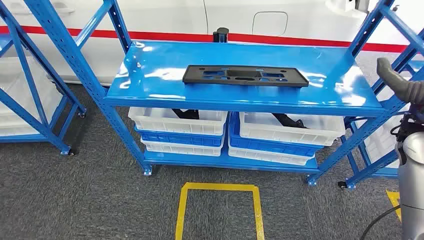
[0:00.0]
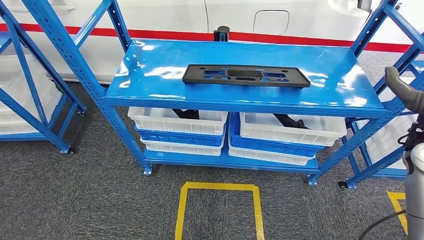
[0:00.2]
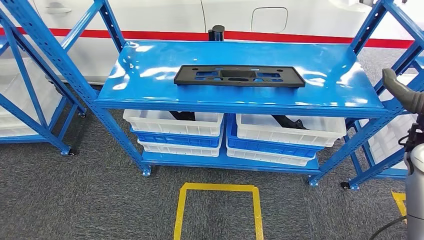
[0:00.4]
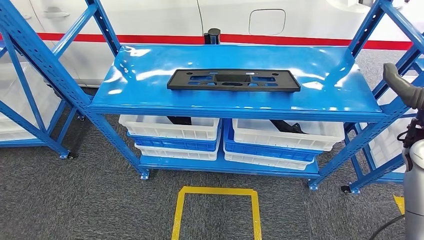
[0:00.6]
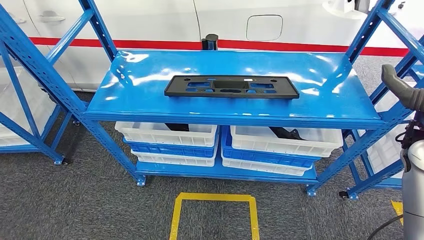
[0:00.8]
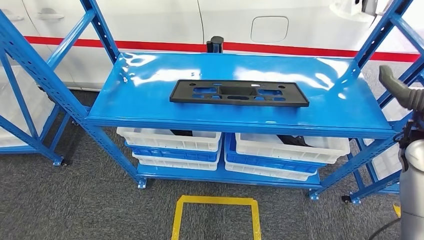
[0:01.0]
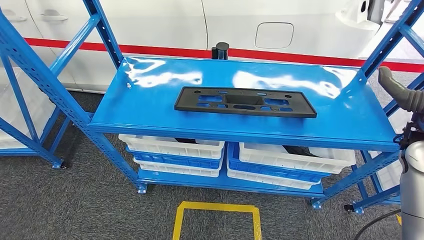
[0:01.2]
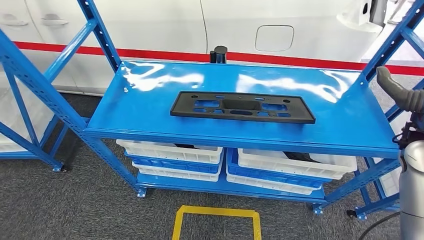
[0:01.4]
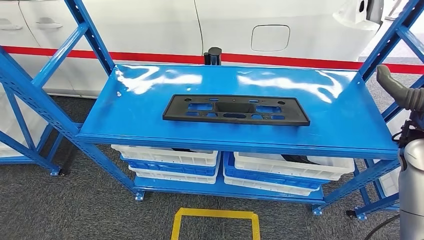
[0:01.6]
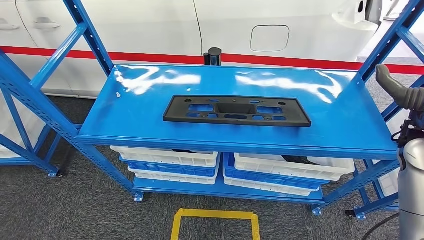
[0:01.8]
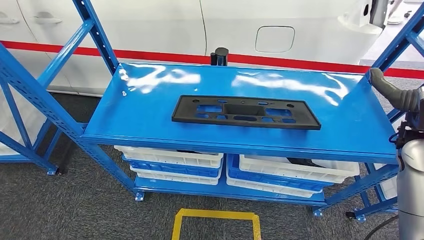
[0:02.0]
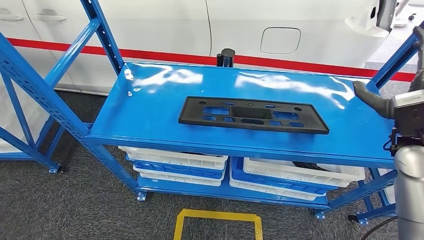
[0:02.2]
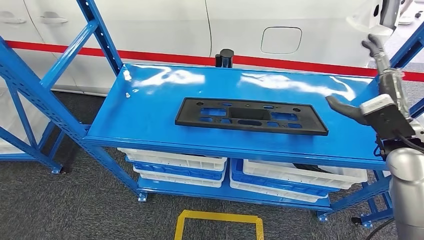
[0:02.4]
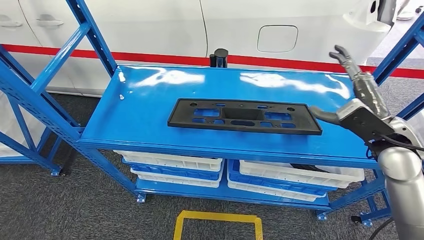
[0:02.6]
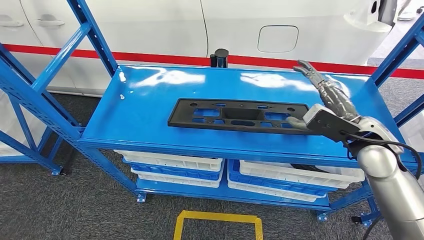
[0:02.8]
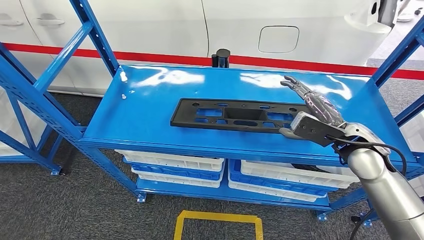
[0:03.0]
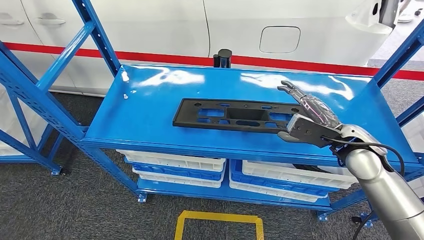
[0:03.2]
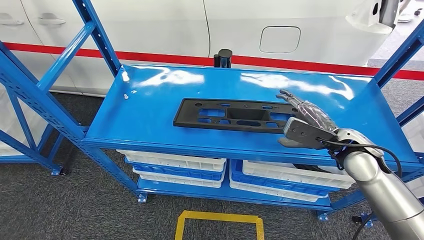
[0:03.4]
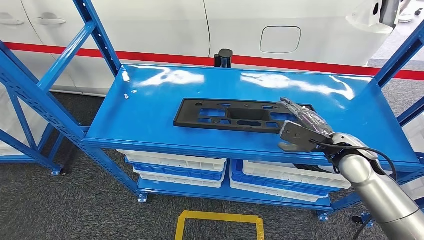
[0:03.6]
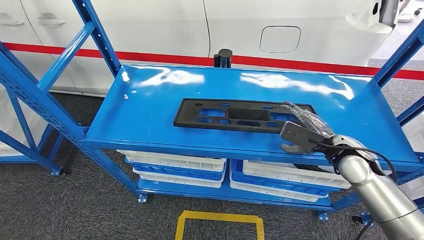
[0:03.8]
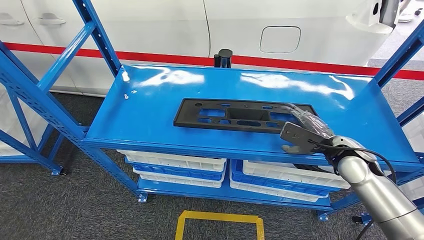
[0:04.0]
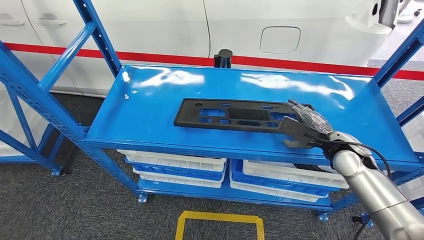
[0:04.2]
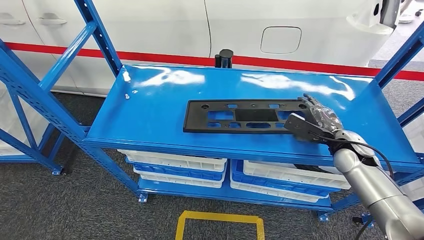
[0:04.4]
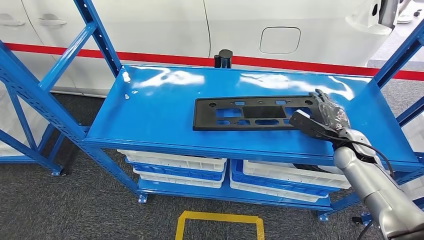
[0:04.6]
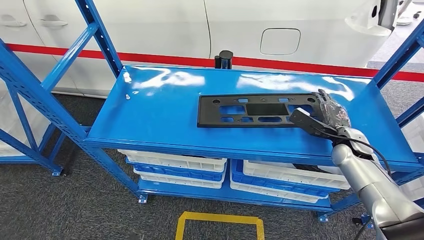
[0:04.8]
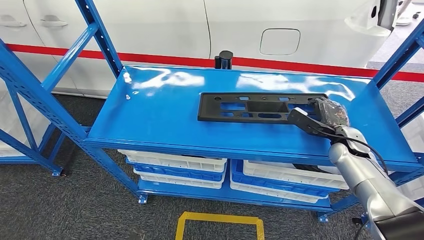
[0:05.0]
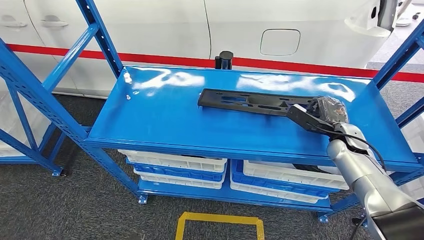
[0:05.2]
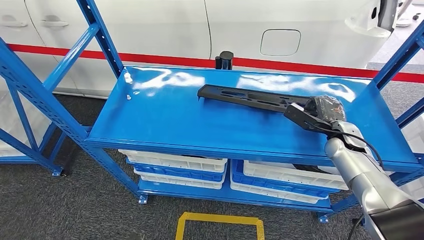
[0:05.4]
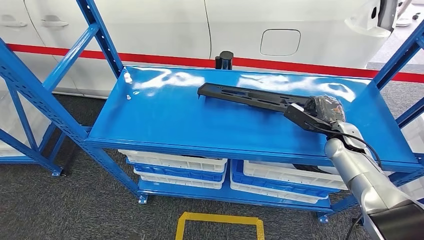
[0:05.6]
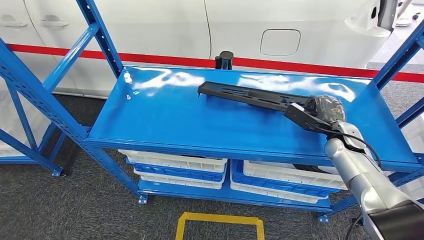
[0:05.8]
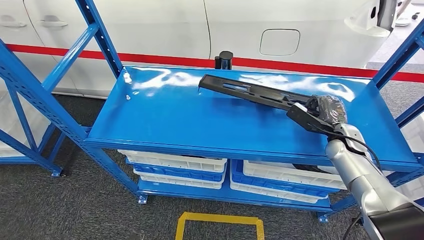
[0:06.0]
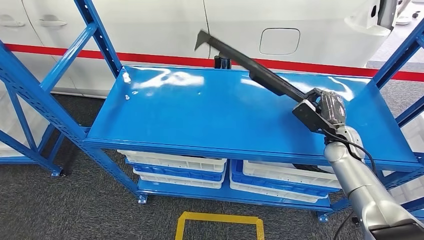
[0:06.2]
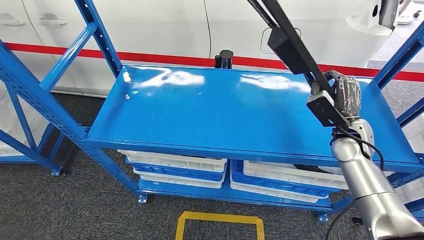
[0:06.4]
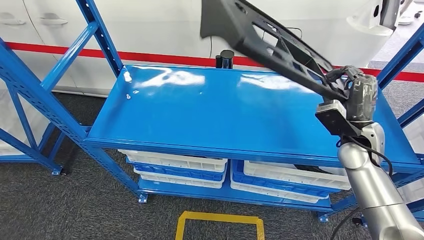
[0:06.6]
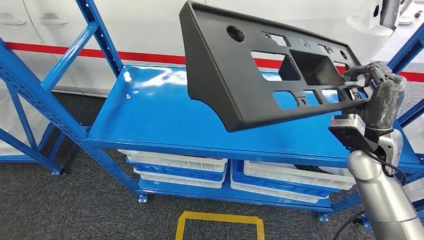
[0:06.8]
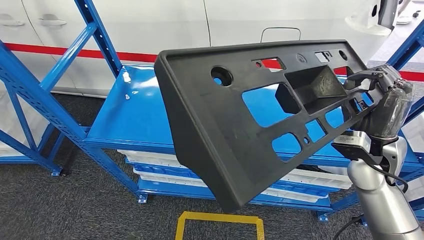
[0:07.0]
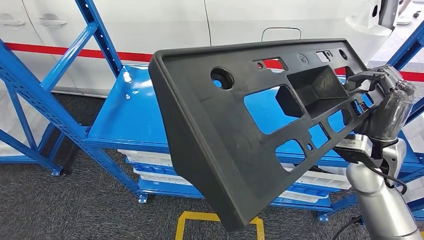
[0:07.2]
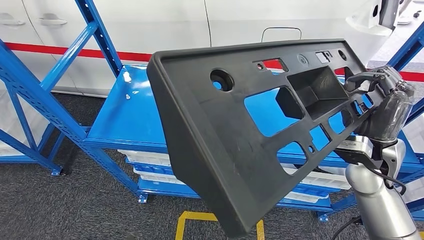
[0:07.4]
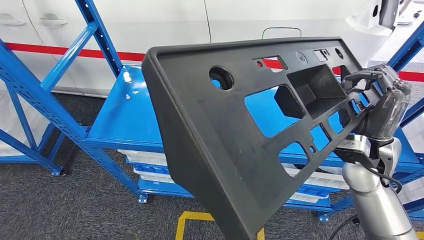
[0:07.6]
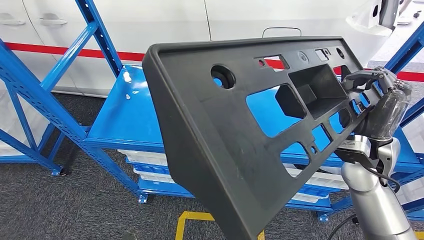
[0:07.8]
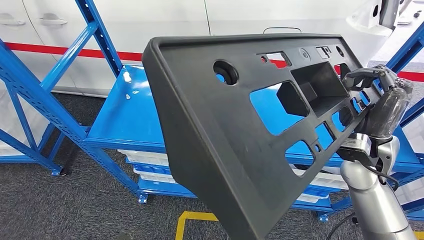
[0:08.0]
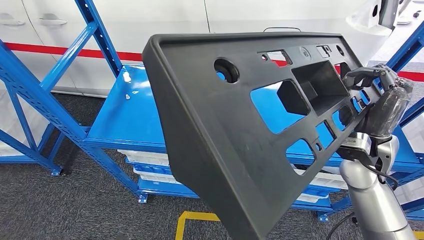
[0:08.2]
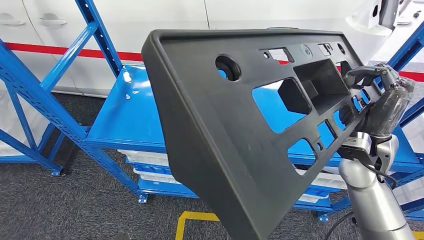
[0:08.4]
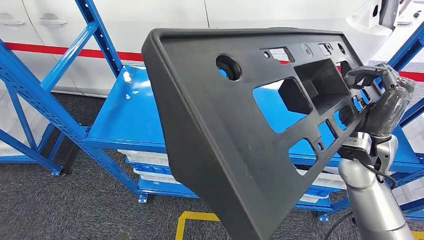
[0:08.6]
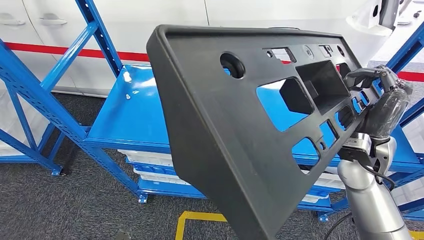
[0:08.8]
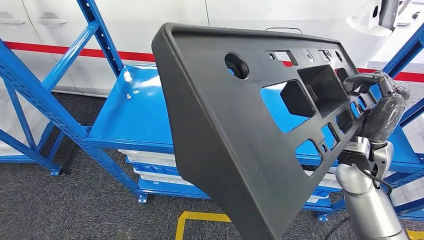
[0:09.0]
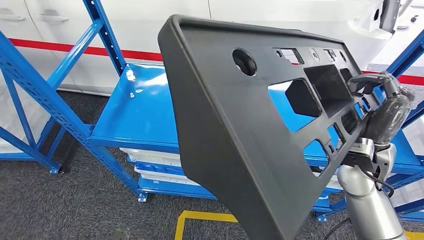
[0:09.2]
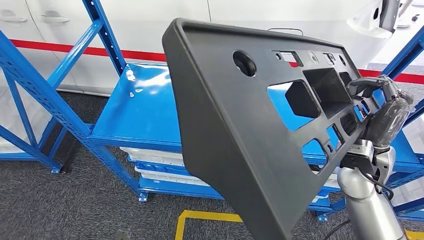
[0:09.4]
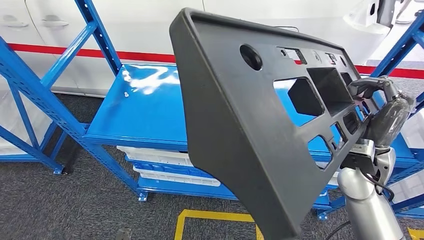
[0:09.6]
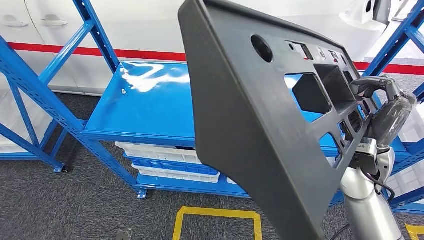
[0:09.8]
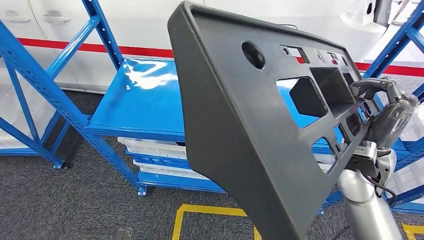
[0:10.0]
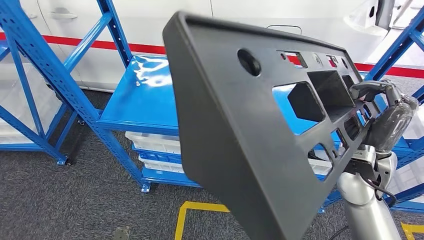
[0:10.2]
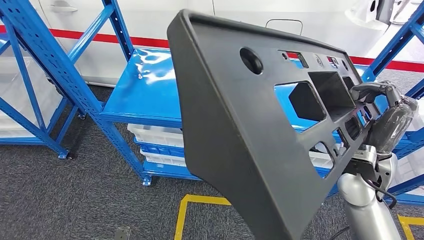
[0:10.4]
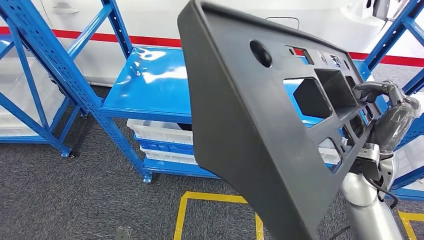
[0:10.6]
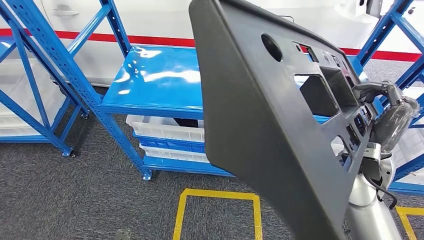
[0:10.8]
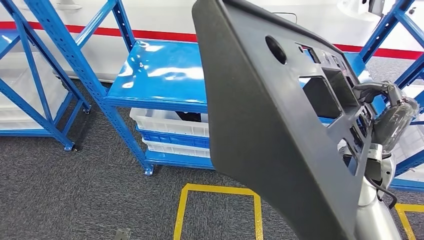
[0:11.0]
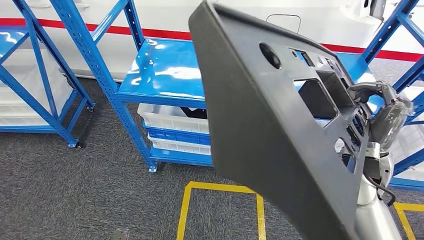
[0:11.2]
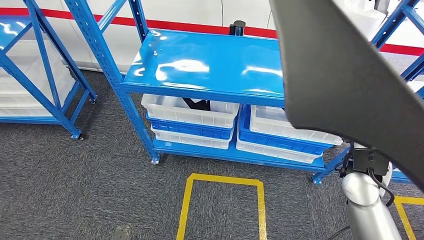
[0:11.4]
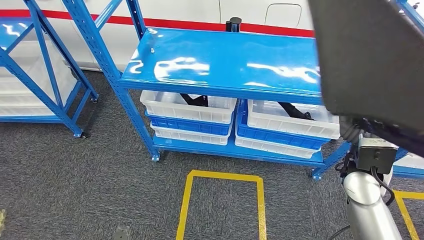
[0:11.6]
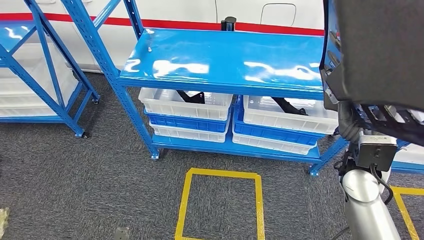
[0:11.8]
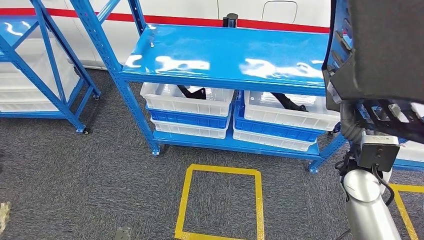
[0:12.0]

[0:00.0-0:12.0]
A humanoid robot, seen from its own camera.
Step, 0:00.0 to 0:10.2: Pick up the large material from the shelf.
0:03.0 to 0:04.4: The right hand moves downward, roughly 10 cm.

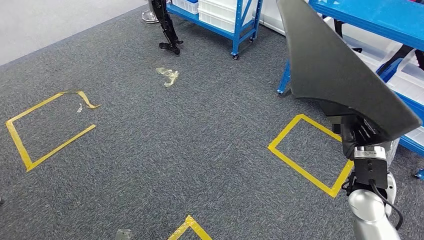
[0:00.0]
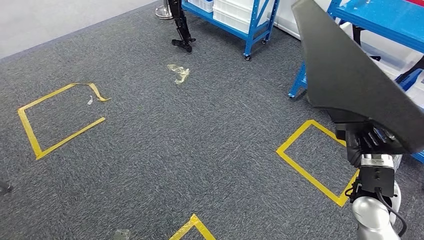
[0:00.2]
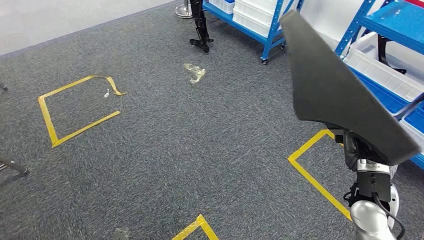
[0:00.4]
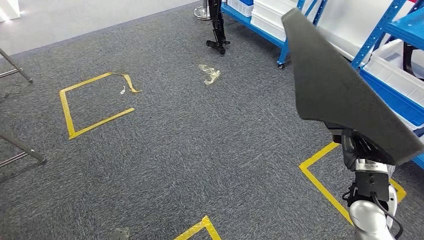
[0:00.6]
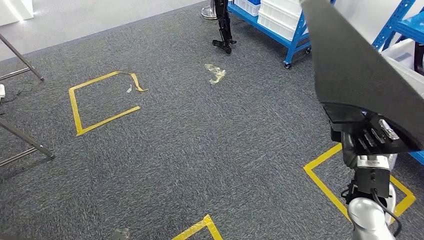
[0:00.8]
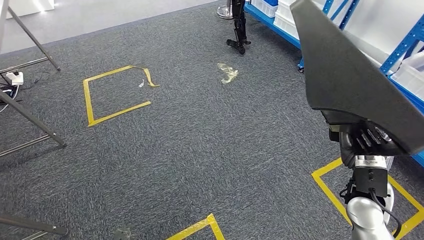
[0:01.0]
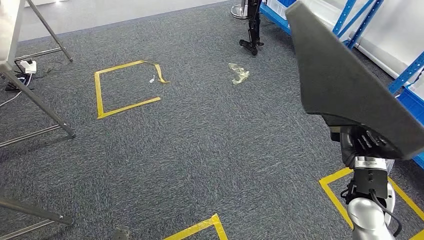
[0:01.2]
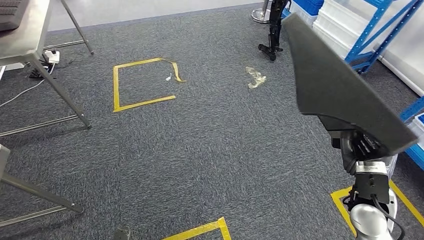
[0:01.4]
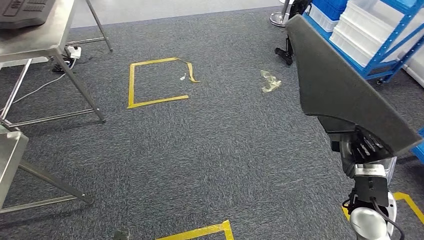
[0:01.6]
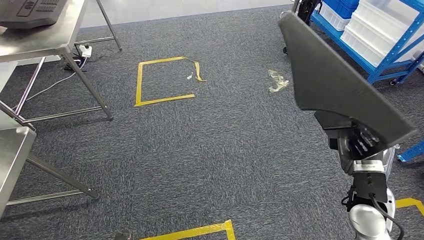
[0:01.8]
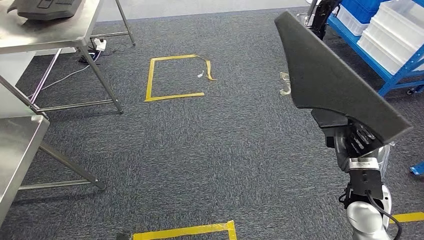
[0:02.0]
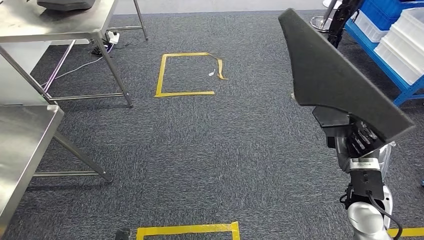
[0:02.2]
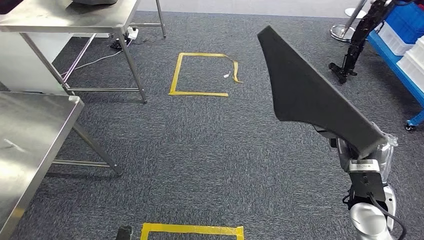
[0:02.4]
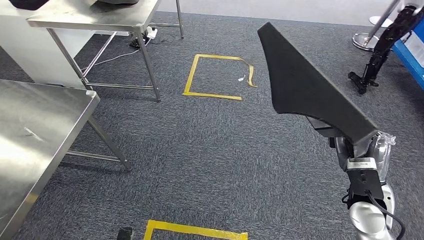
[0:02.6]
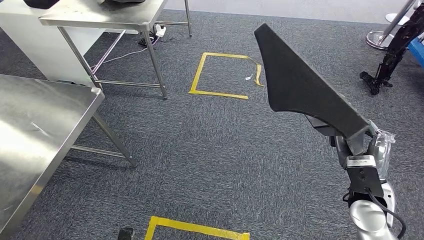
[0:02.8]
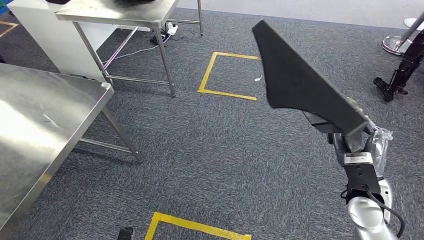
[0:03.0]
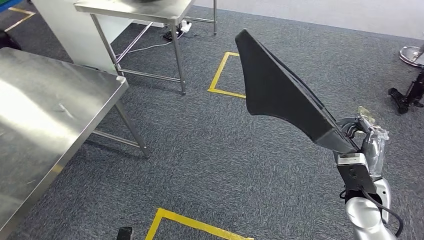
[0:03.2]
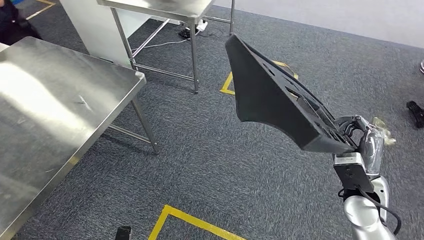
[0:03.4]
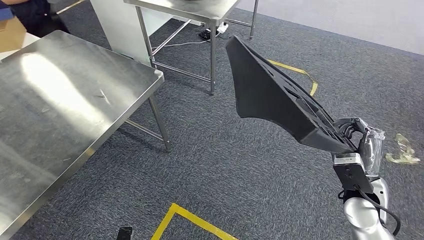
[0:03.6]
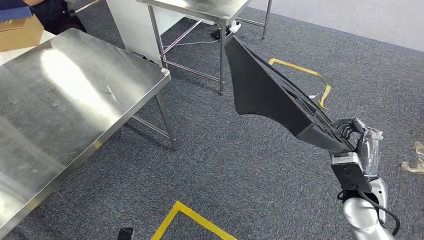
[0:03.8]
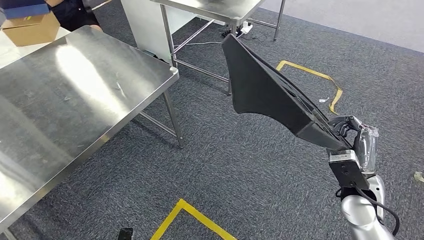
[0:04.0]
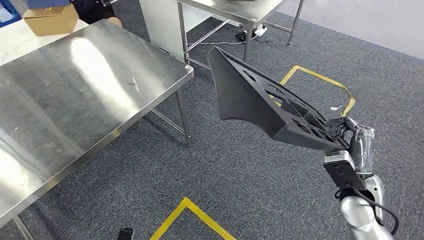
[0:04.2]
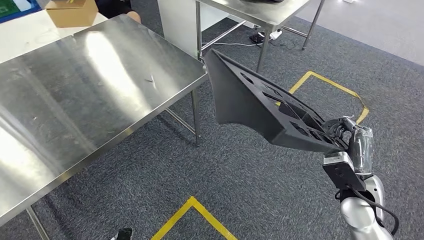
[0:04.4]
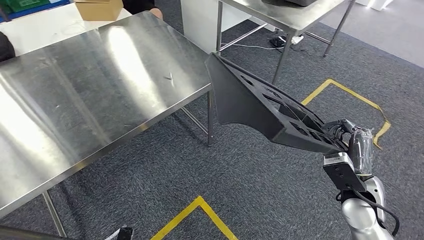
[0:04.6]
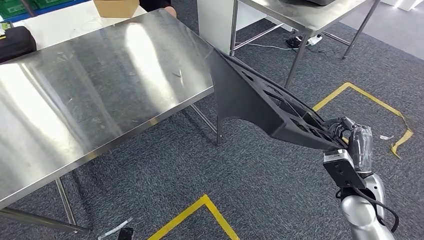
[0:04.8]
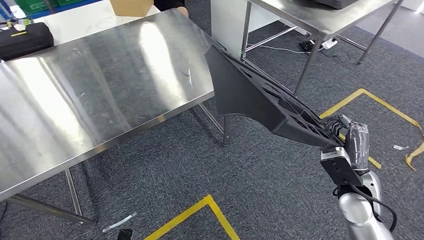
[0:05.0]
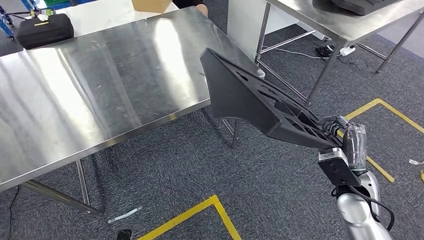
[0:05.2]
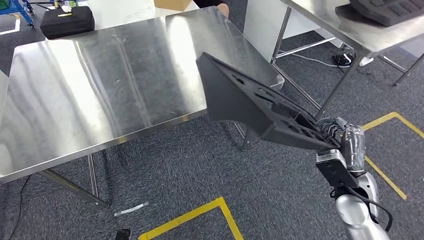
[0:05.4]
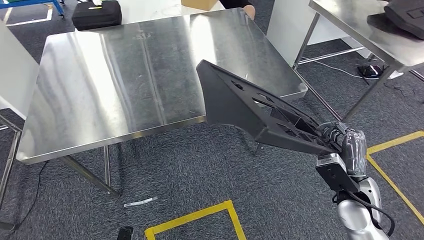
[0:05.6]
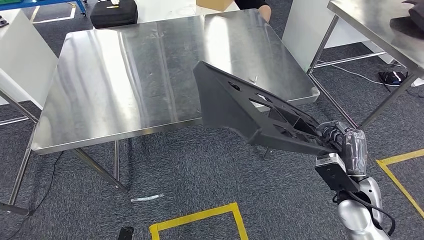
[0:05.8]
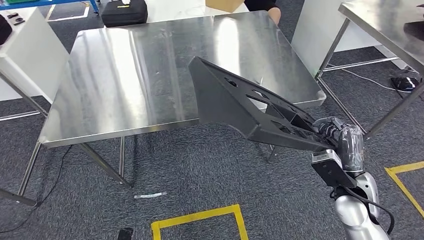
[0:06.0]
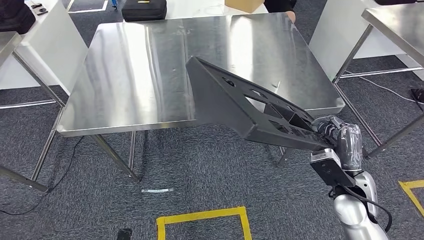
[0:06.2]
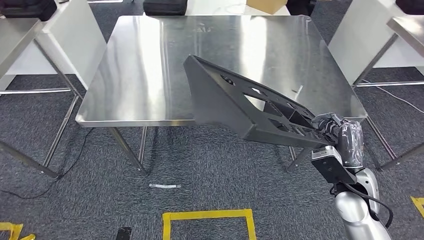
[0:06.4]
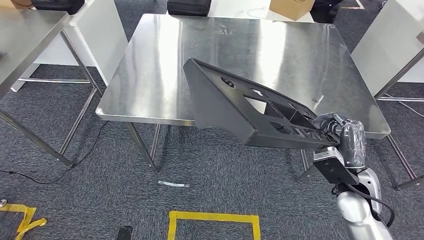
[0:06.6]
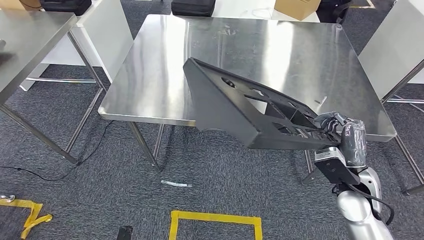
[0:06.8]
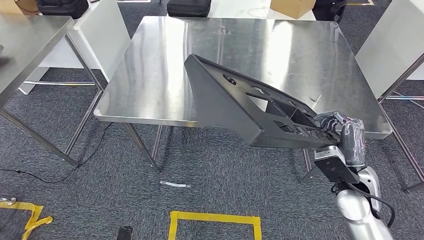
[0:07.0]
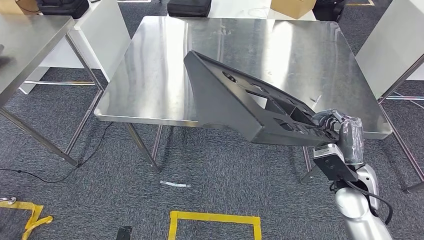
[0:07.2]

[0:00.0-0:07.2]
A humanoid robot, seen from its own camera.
Step, 0:00.0 to 0:05.8: Move the large material to the front of the workbench.
